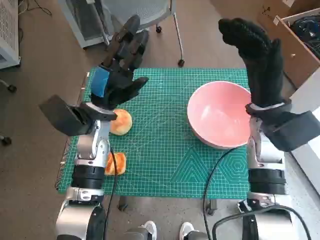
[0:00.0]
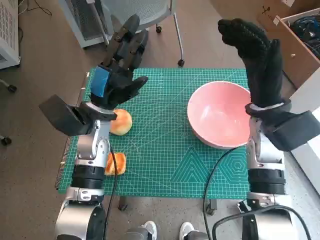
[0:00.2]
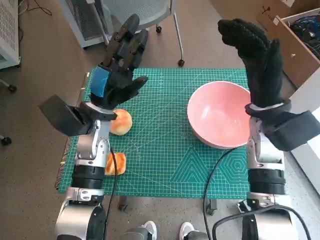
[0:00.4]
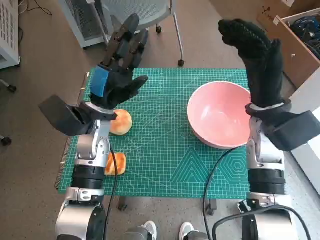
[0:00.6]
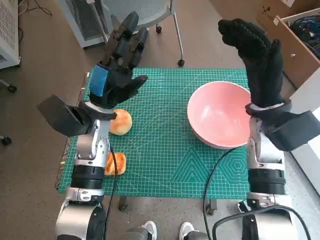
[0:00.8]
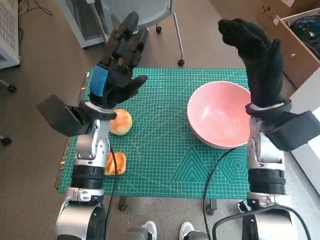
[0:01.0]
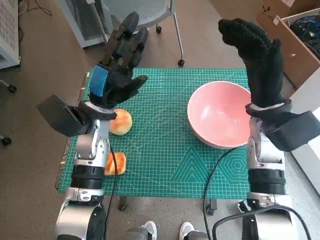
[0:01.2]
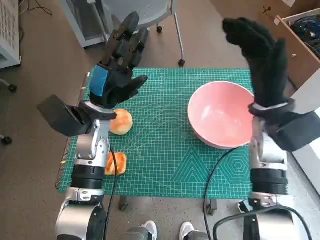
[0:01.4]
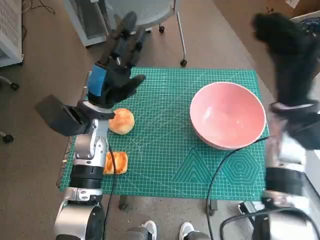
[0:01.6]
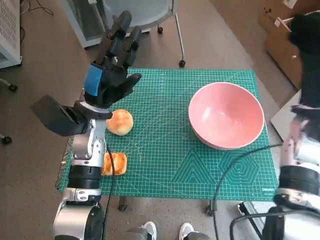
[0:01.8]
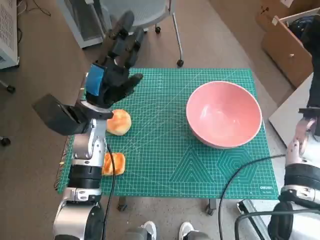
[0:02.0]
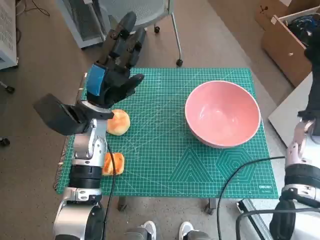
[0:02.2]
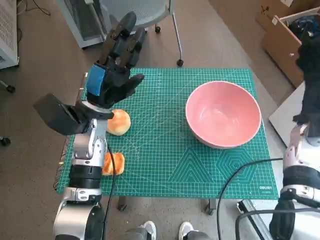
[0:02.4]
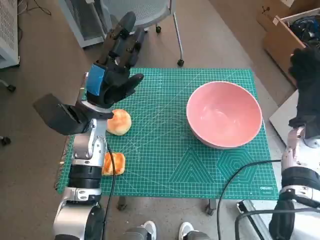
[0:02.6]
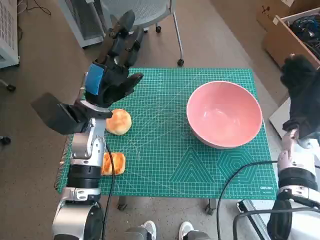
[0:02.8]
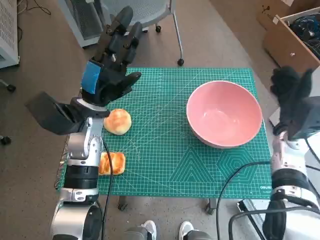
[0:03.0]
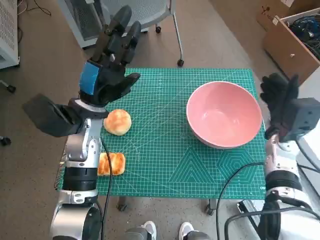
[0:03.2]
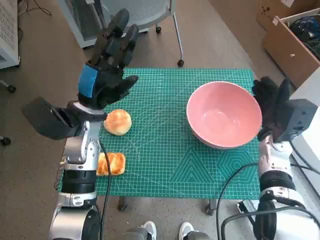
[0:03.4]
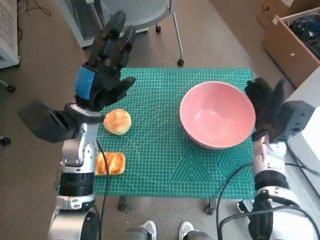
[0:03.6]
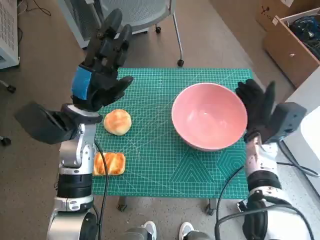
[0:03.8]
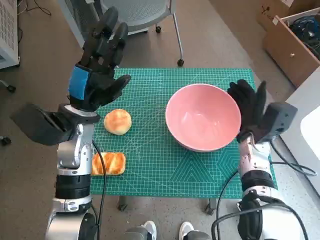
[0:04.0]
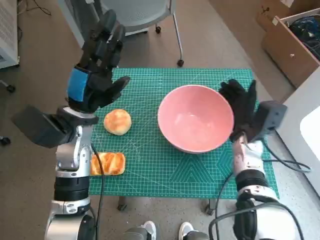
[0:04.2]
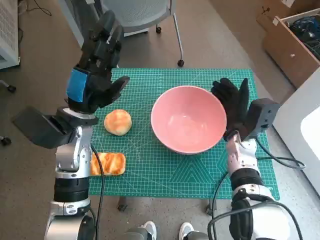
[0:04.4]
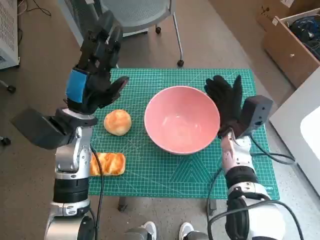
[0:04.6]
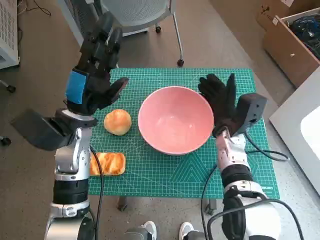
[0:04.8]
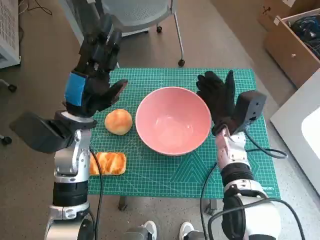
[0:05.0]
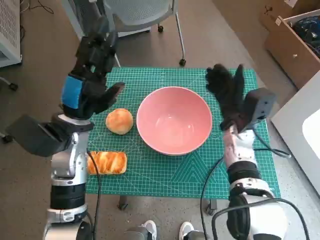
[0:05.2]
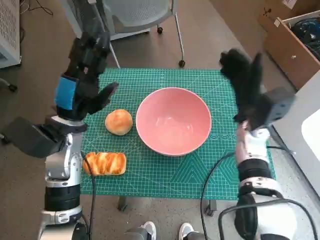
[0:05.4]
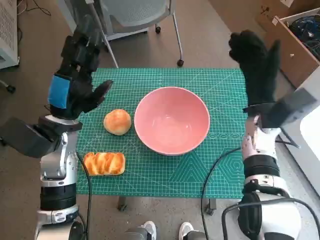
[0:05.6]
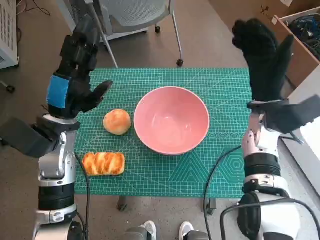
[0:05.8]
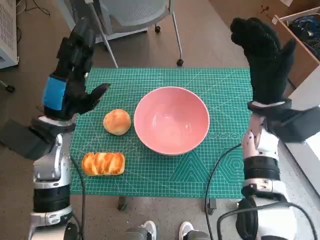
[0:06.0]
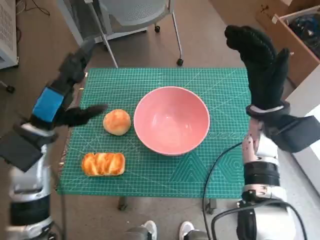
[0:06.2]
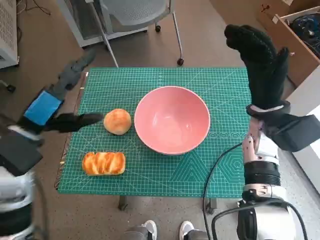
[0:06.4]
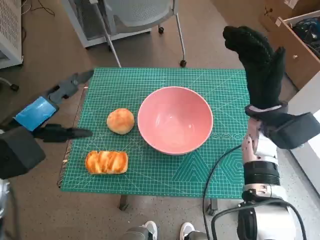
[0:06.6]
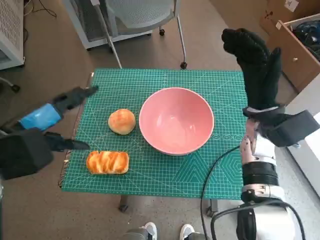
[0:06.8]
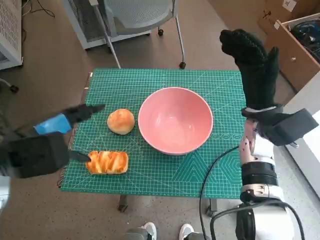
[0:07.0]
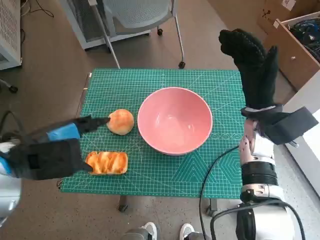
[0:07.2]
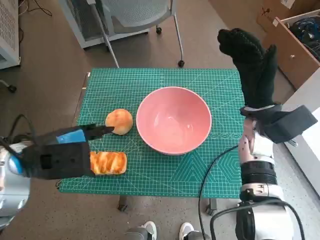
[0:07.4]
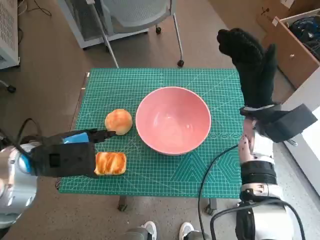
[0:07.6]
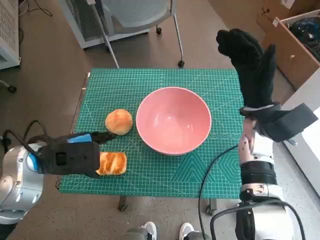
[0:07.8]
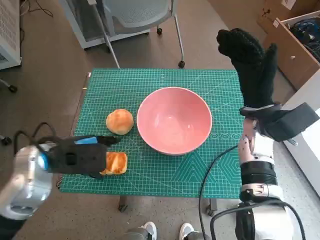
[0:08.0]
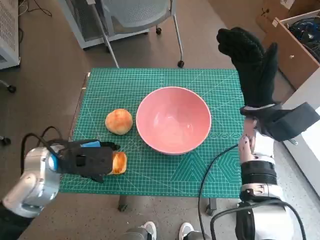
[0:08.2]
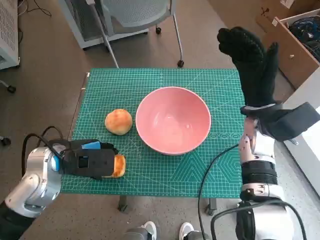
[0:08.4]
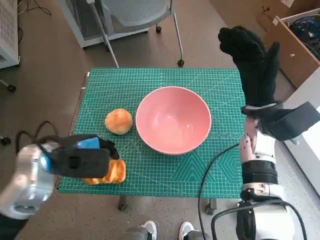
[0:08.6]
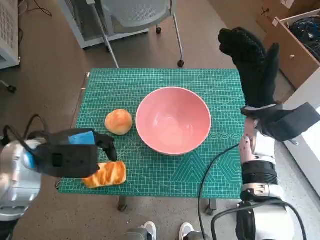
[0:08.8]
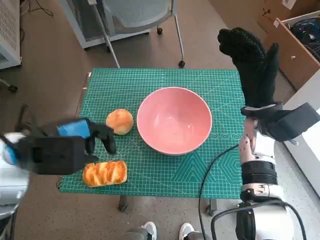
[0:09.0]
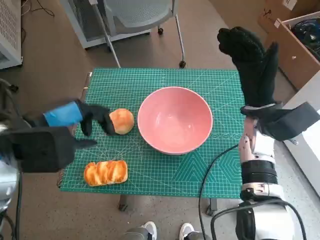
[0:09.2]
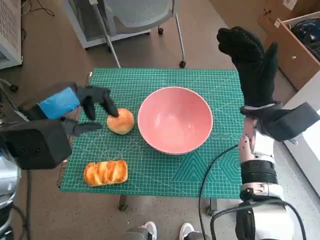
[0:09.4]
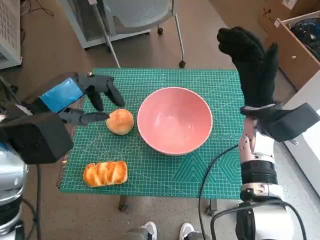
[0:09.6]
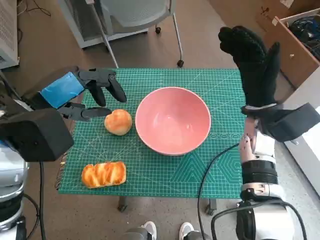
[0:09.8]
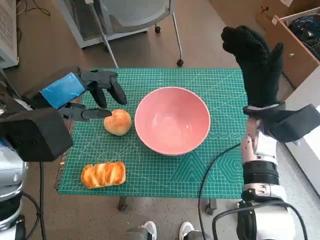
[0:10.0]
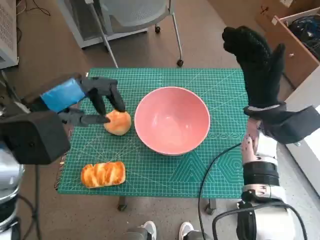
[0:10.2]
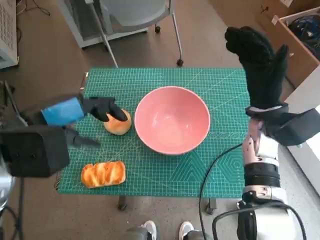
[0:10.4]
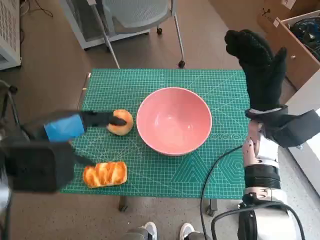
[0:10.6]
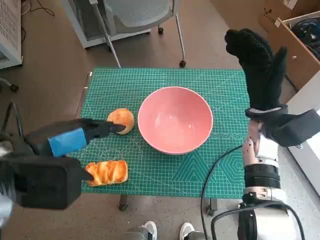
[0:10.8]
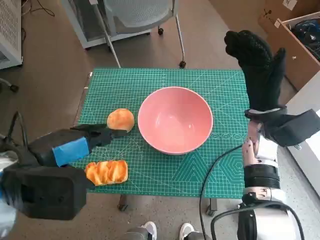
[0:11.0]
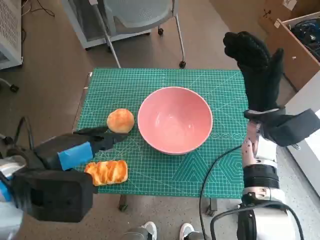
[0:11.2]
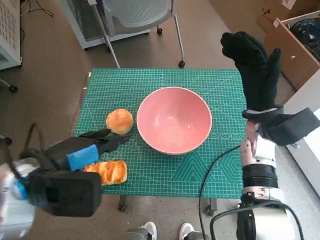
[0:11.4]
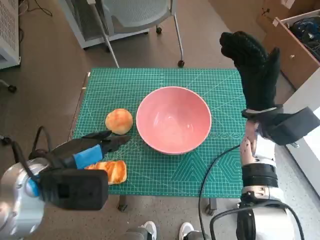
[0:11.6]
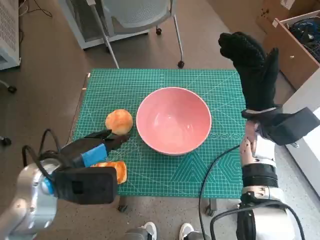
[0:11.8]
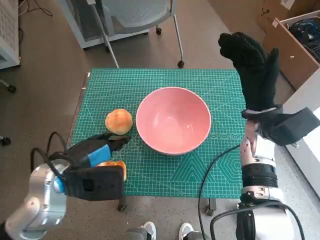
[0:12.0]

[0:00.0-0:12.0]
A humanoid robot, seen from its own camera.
Step, 0:00.0 to 0:05.0: Move the pink bowl to the center of table with right hand.
0:01.6 to 0:03.0: The right hand is displaced downward and to the right by roughly 10 cm.
0:03.0 to 0:04.4: The right hand travels to the left by about 10 cm.
0:04.4 to 0:06.0: The right hand is displaced upward by about 10 cm.
0:06.0 to 0:07.6: The left hand heads backward, covering some 5 cm.
0:07.6 to 0:09.0: The hands move only a little.
0:09.0 to 0:10.4: The left hand heads upward, covering roughly 5 cm.
0:10.4 to 0:12.0: The left hand is displaced downward by some 10 cm.

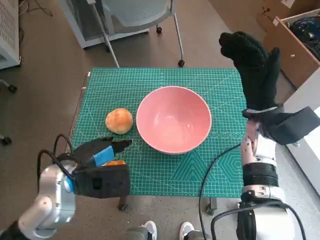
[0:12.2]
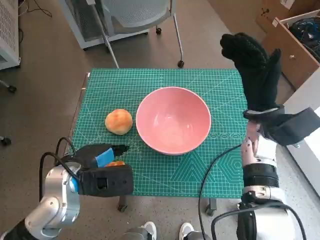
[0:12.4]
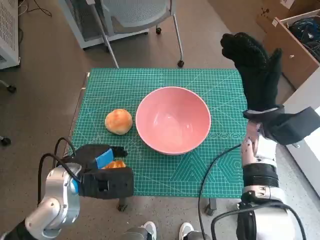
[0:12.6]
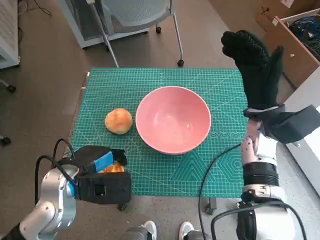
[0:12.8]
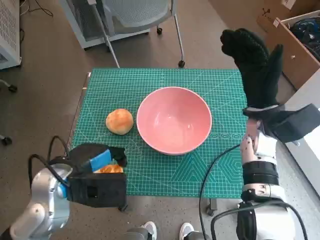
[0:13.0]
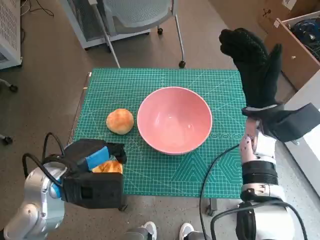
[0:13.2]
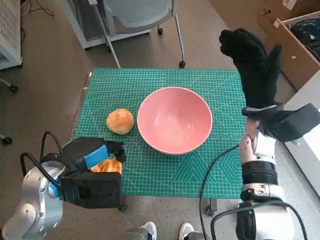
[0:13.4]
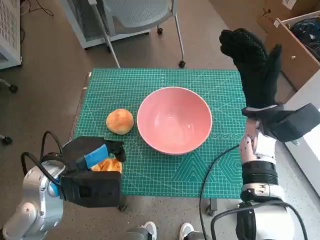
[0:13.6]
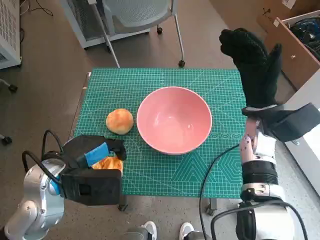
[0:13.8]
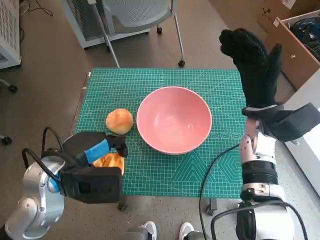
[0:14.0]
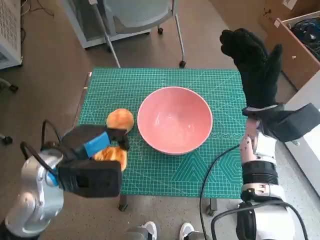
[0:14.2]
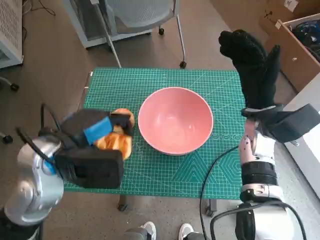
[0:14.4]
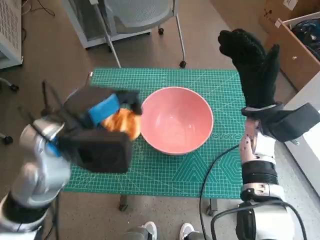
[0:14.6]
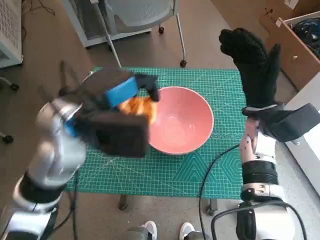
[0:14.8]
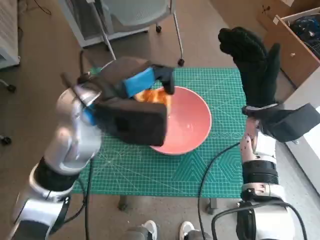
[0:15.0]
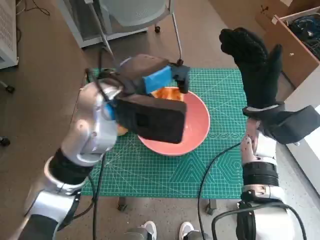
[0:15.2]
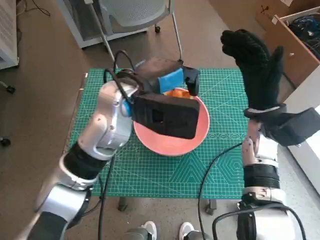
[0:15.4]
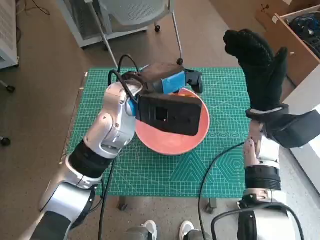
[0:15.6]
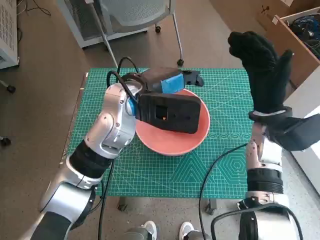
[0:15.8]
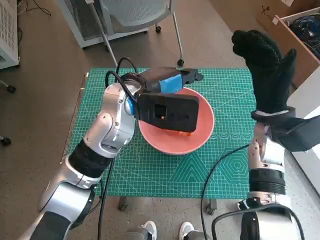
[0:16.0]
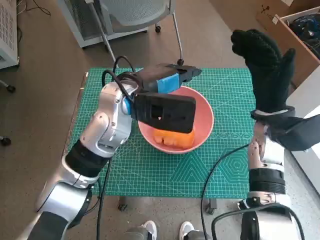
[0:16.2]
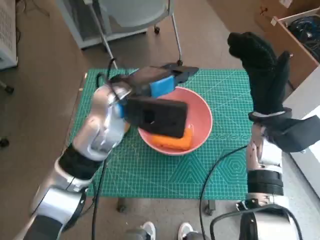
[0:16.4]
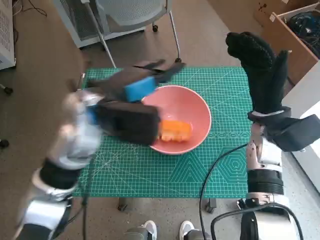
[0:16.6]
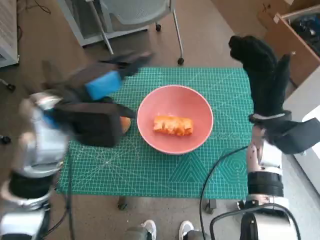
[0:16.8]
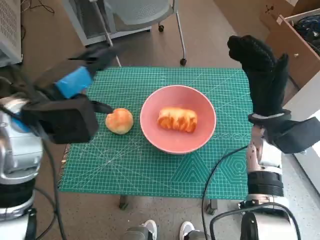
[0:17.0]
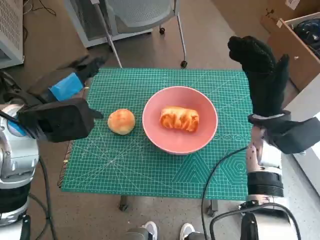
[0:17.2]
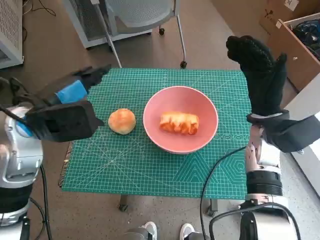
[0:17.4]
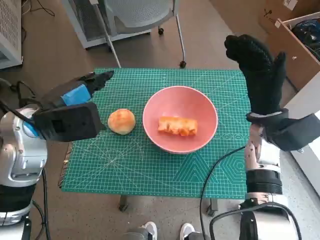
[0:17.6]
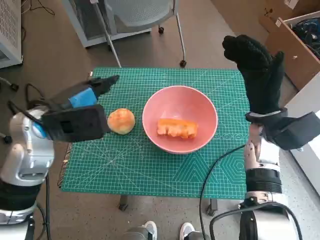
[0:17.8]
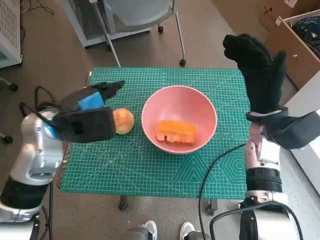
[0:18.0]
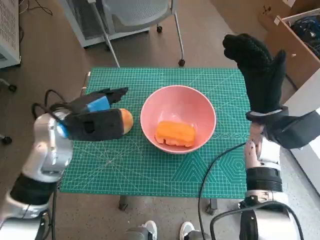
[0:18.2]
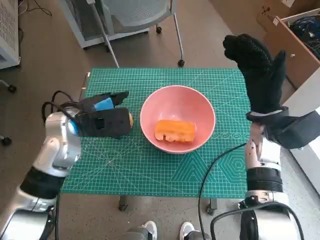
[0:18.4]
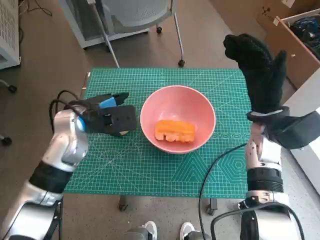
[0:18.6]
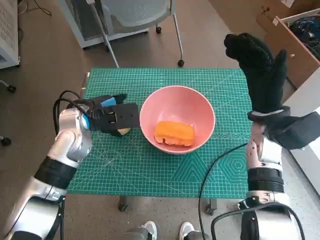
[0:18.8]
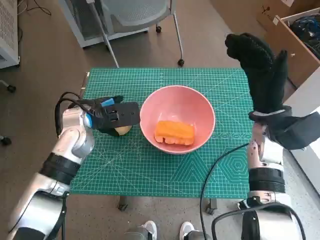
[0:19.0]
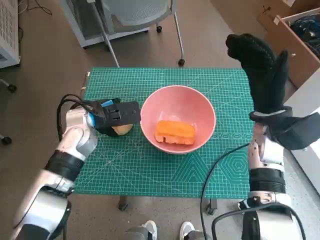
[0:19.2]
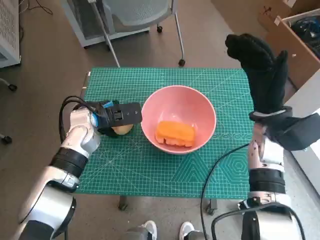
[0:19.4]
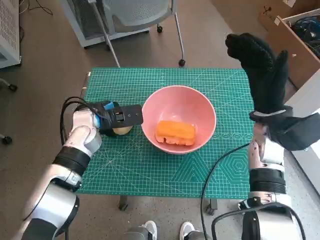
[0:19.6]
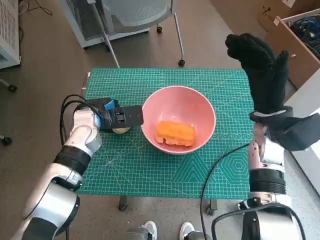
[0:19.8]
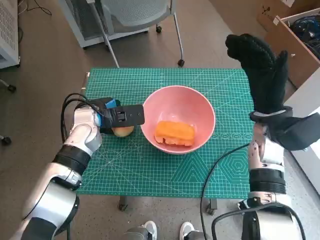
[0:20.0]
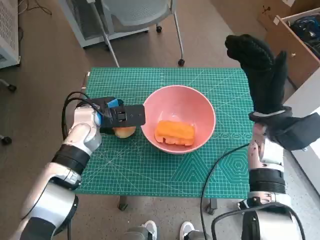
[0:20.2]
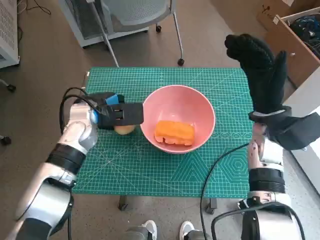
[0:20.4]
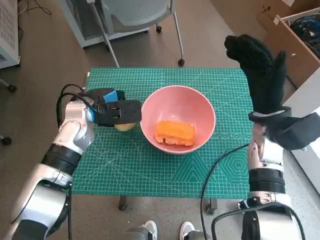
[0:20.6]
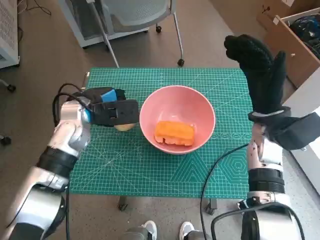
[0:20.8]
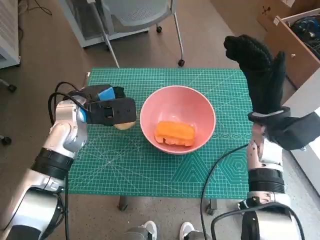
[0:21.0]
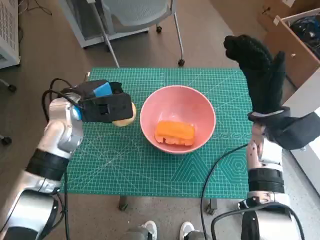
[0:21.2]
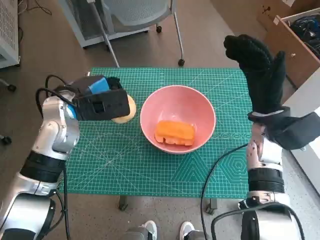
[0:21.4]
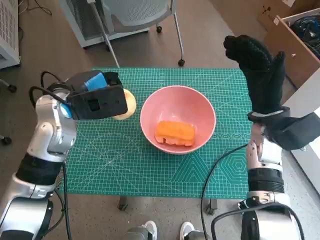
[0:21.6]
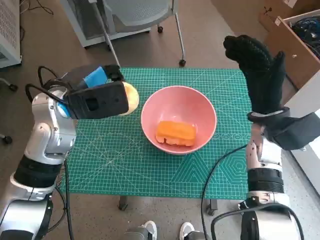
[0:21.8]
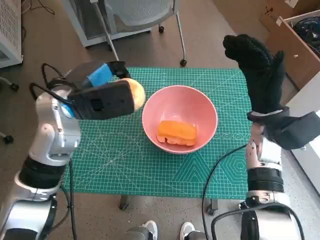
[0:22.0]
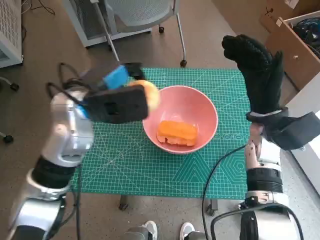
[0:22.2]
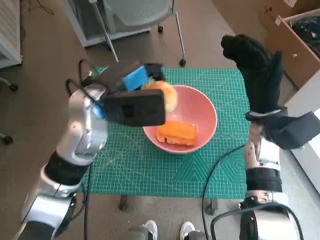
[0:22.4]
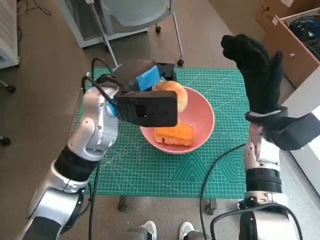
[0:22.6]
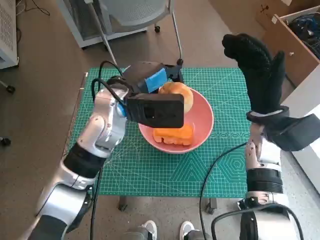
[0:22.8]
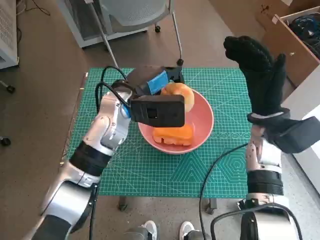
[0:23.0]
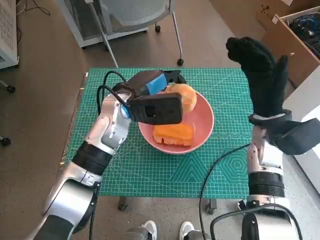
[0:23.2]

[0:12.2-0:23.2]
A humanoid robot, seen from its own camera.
Step, 0:12.8 to 0:16.0: Place the long bread in pink bowl with left hand.
Step, 0:16.2 to 0:19.8: Grasp the round bread with left hand.
0:12.2 to 0:13.8: The hands move only a little.
0:13.8 to 0:15.4: The left hand is displaced to the right, forward and upward by roughly 15 cm.
0:15.4 to 0:17.0: The left hand is displaced to the left by roughly 10 cm.
0:17.0 to 0:18.4: The left hand moves downward, some 10 cm.
0:18.4 to 0:20.0: The left hand is displaced downward by roughly 5 cm.
0:20.0 to 0:21.6: The left hand heads upward, covering about 10 cm.
0:21.6 to 0:23.2: The left hand shifts approximately 10 cm to the right.
